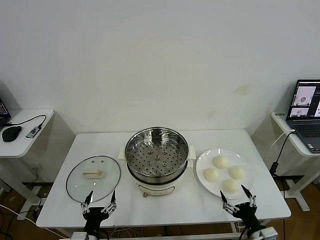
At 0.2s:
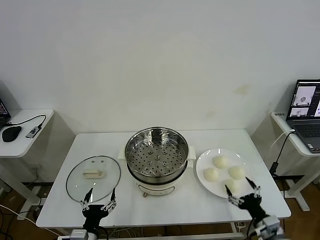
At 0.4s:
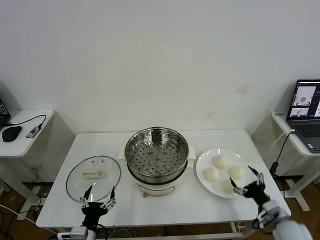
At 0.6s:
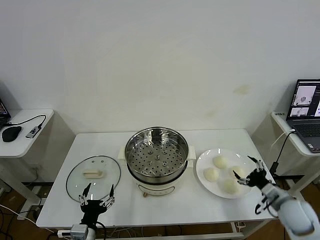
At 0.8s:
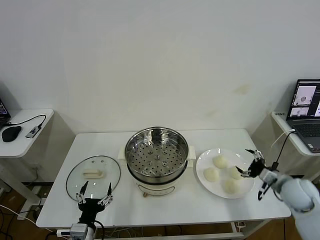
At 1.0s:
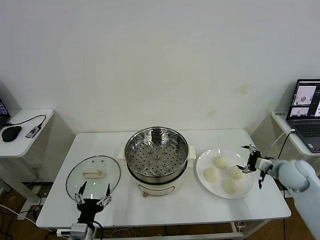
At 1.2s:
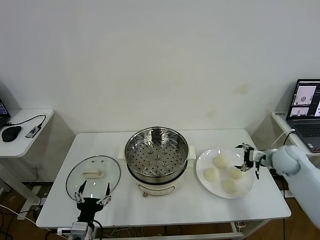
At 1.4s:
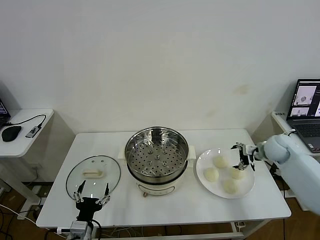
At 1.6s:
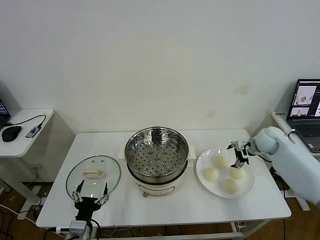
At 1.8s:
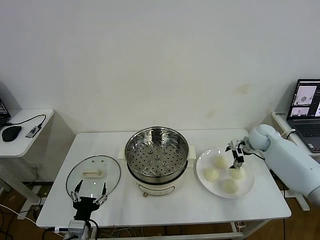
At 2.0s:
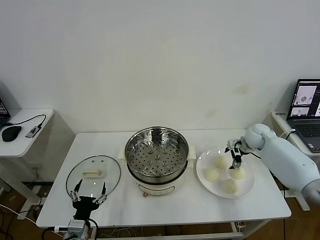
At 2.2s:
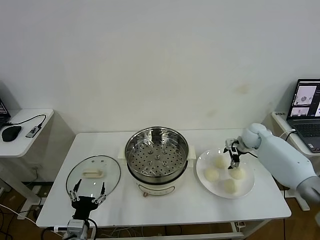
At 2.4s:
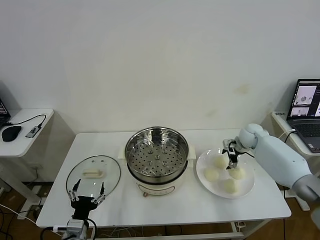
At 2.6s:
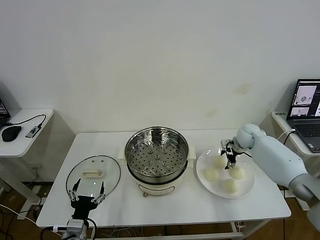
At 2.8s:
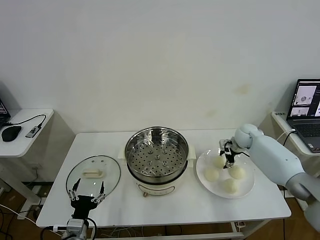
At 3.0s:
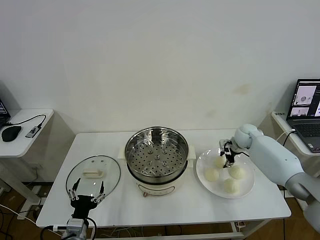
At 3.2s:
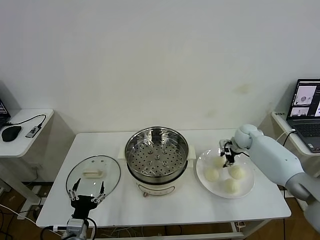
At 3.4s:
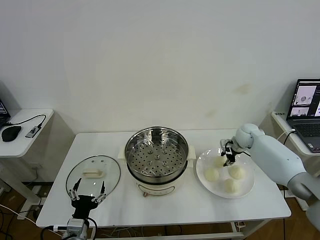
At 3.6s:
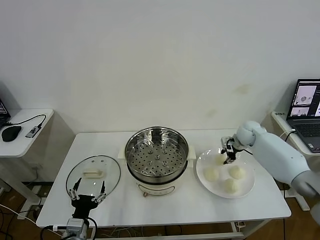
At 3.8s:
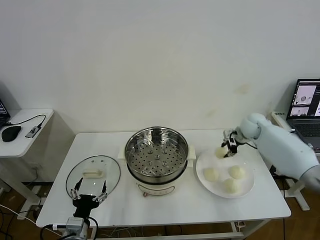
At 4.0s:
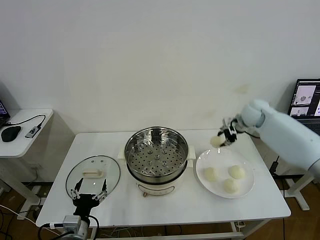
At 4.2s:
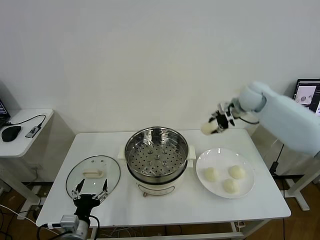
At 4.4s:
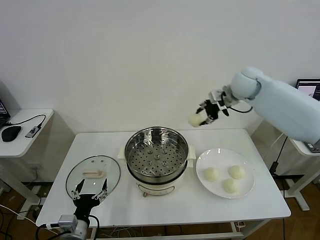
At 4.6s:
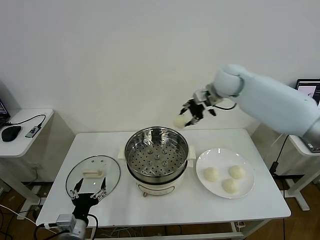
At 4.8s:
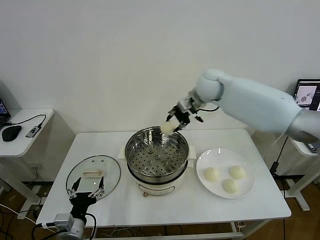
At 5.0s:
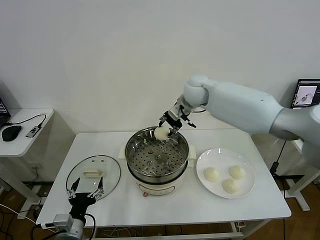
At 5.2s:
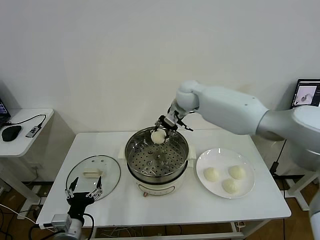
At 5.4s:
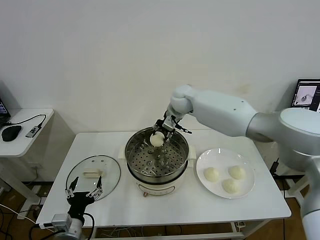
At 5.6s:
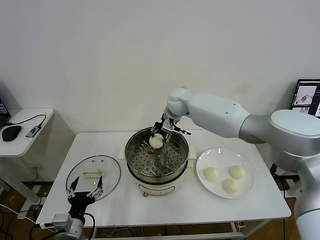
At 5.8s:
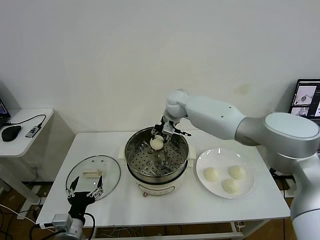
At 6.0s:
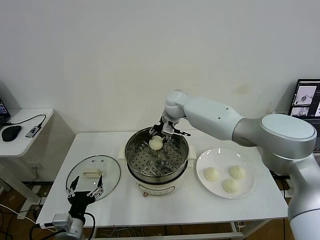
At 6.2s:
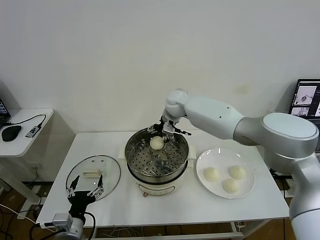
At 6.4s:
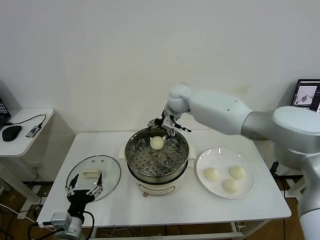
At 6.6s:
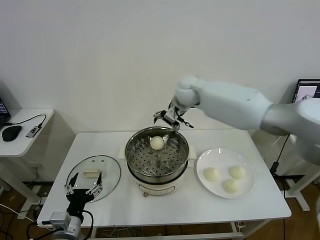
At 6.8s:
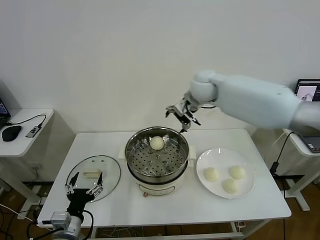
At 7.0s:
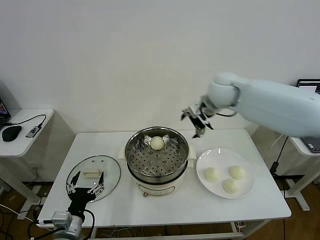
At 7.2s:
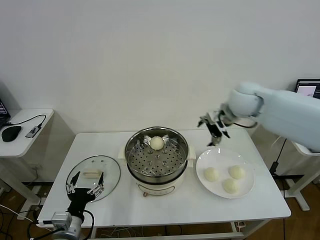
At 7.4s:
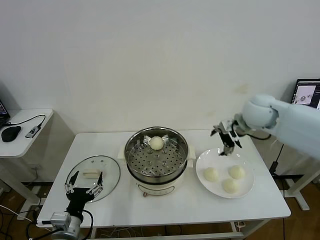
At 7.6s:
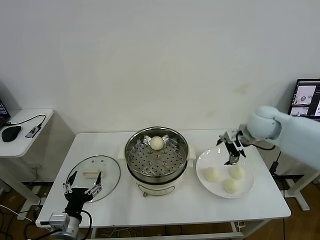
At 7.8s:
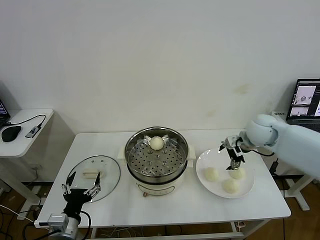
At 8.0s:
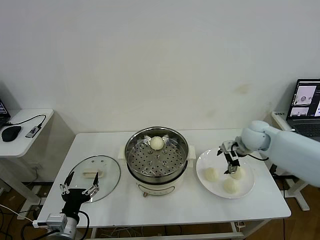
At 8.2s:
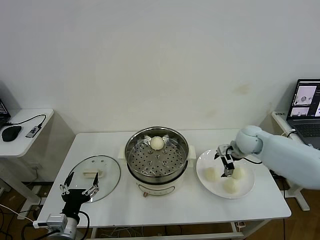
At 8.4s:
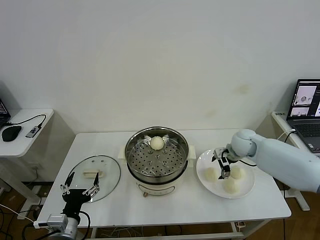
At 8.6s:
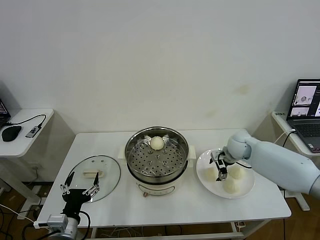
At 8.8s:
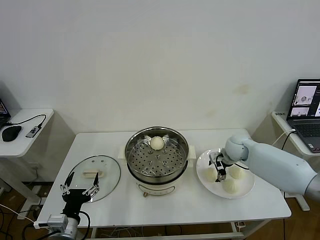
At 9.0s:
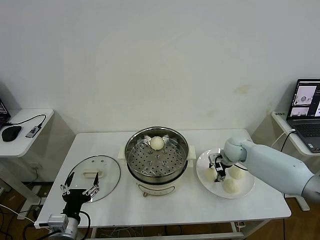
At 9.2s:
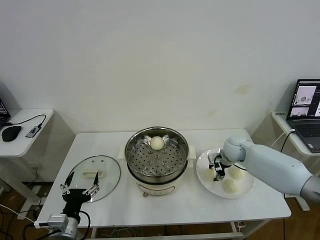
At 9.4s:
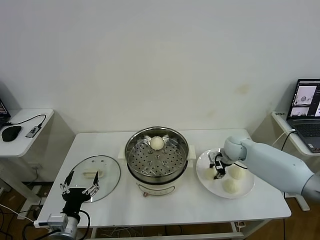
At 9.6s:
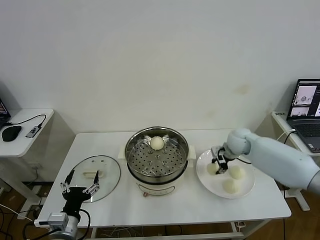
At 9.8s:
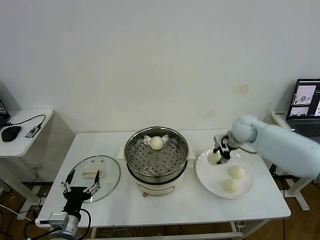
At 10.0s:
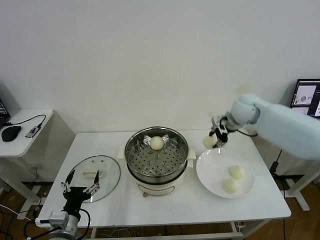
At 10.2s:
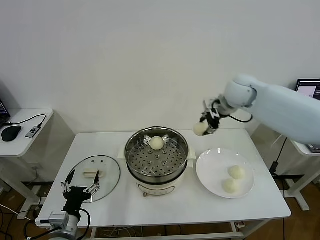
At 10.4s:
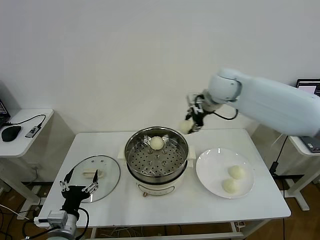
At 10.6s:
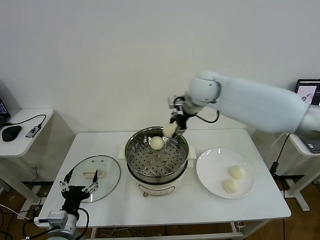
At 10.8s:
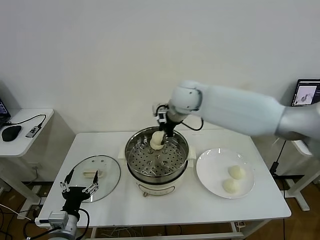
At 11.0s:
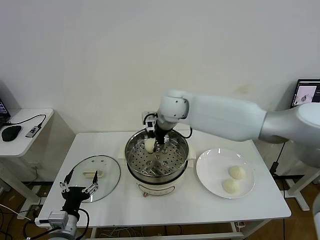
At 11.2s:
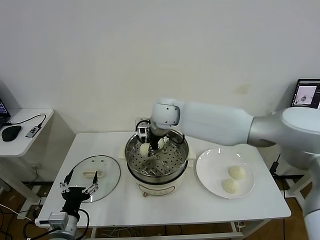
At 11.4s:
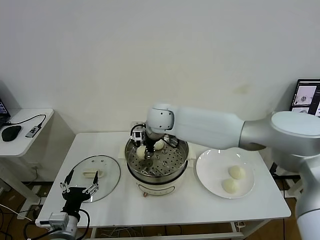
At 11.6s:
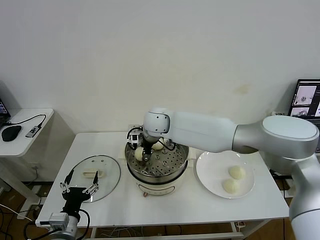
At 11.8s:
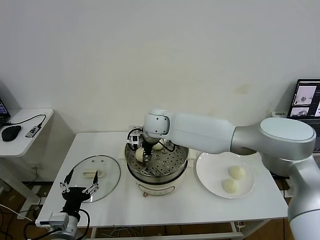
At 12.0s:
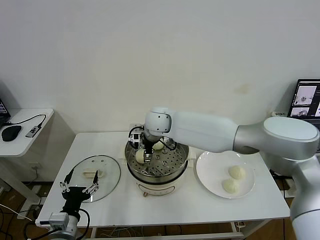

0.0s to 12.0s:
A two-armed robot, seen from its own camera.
Task of the whole recording: take steamed baozi put them in steamer then cover it.
Step, 0.0s to 3.4s: Grasp the baozi in the plate with right gripper.
Step, 3.6s to 6.2s: Place the baozi on the steamer with right gripper.
Step, 6.6s to 9.4s: Grasp the baozi in the plate with right gripper.
1.6s to 3.0s: The right gripper shifts by about 5 cm, and closes.
3.0s to 4.4s: The right gripper travels upward and to the left by approximately 30 cm.
4.4s to 6.0s: The right gripper moves to the left and downward, some 20 cm, and opens.
6.0s to 7.6s: The right gripper is displaced to the right and backward by some 30 cm.
7.6s to 9.0s: The right gripper goes some 15 cm downward, and closes its fingers.
9.0s to 10.4s: The right gripper is displaced upward and to the left by about 30 cm.
10.4s to 12.0s: The right gripper goes about 20 cm to the left and downward, and opens.

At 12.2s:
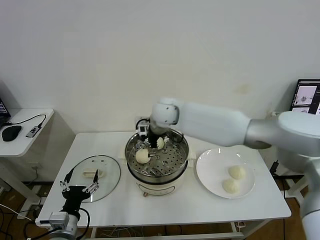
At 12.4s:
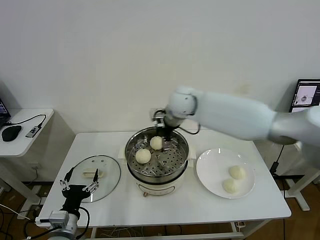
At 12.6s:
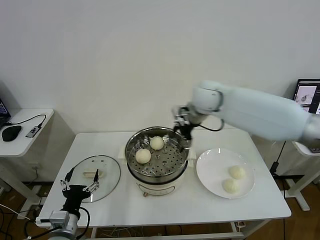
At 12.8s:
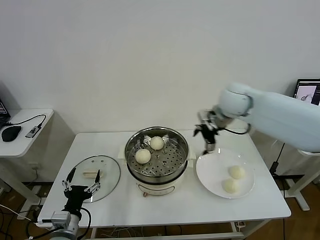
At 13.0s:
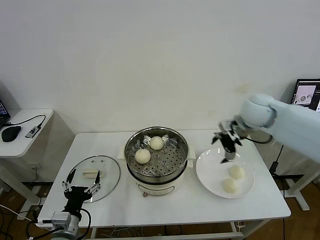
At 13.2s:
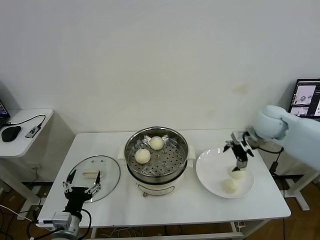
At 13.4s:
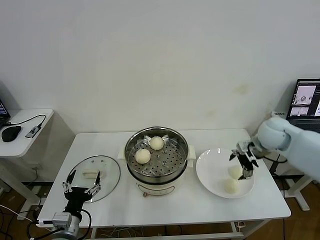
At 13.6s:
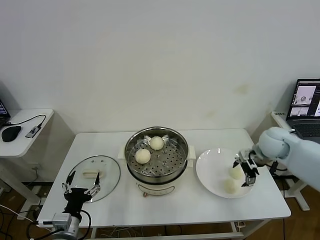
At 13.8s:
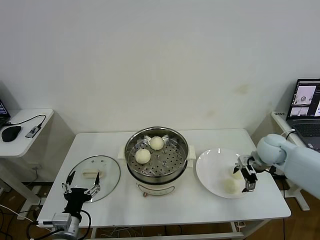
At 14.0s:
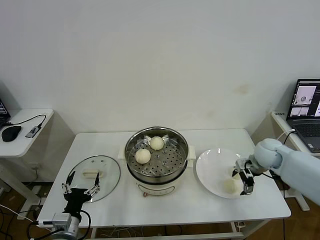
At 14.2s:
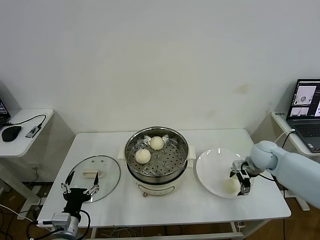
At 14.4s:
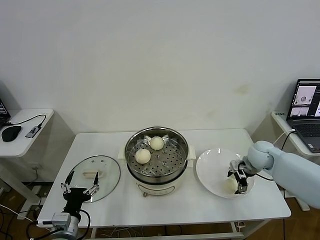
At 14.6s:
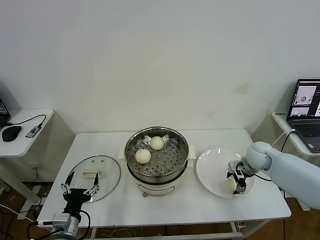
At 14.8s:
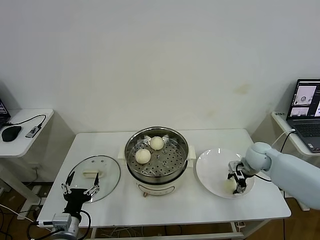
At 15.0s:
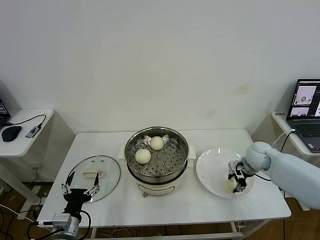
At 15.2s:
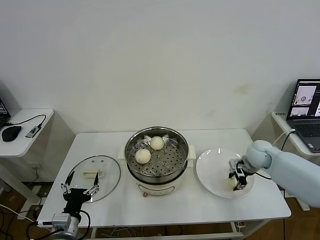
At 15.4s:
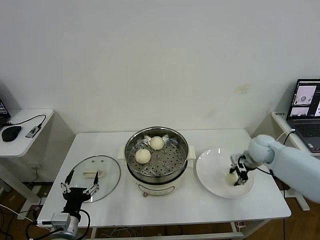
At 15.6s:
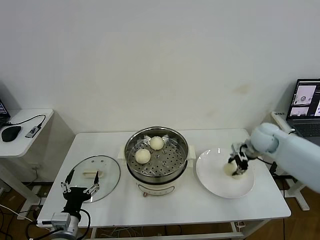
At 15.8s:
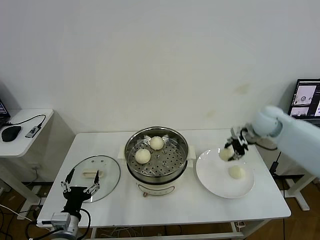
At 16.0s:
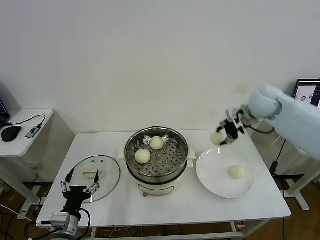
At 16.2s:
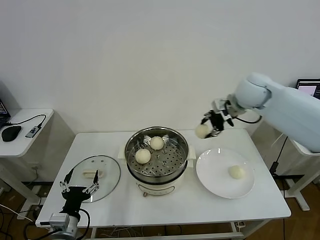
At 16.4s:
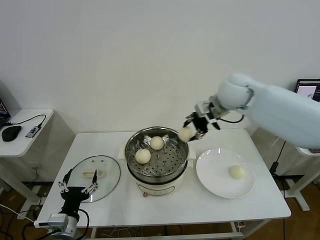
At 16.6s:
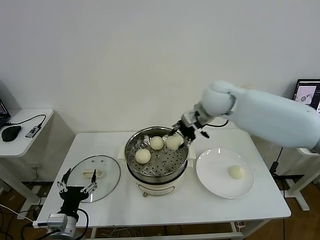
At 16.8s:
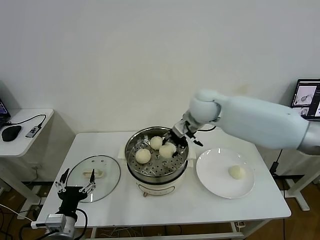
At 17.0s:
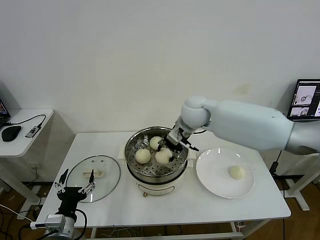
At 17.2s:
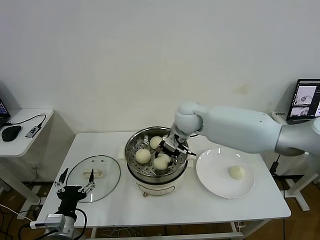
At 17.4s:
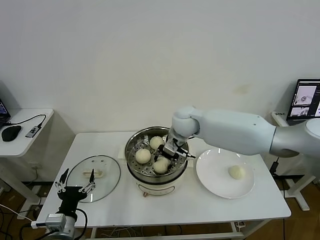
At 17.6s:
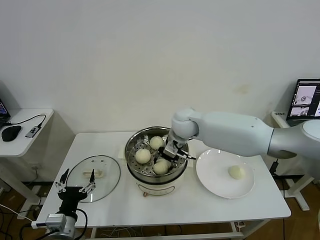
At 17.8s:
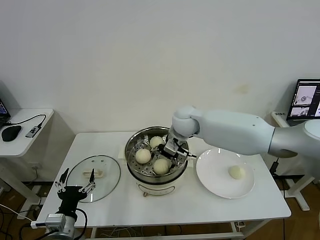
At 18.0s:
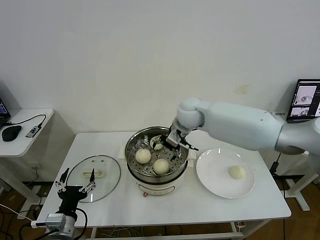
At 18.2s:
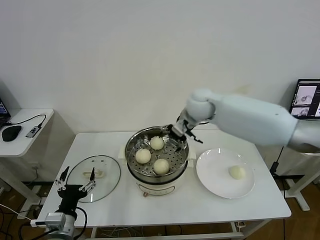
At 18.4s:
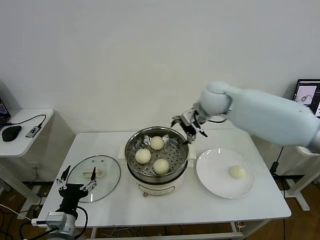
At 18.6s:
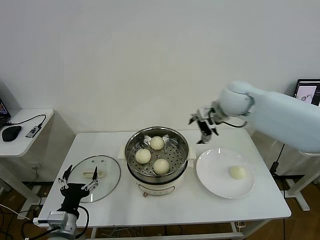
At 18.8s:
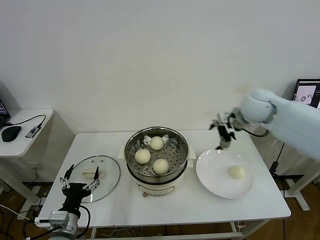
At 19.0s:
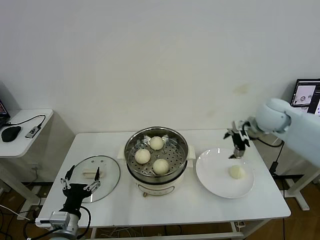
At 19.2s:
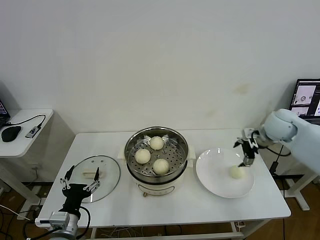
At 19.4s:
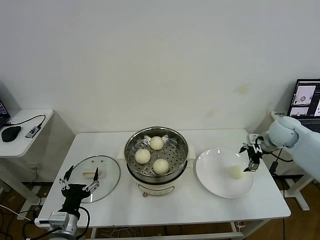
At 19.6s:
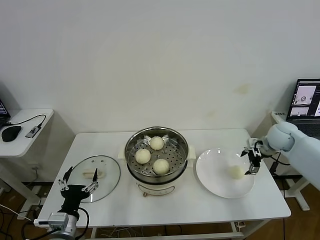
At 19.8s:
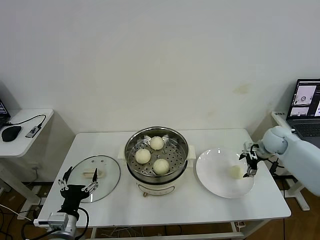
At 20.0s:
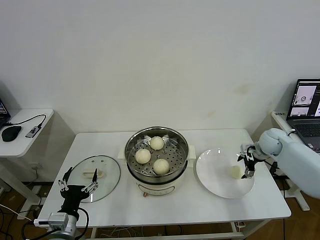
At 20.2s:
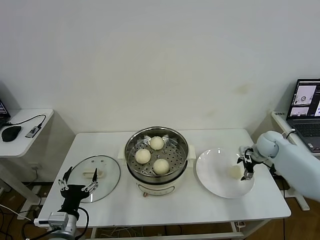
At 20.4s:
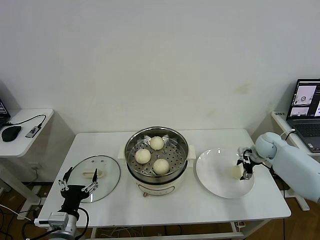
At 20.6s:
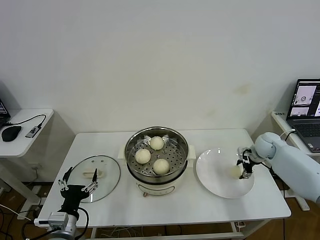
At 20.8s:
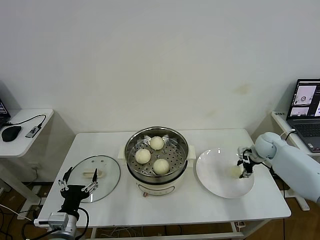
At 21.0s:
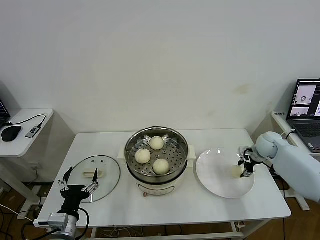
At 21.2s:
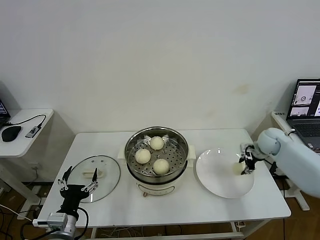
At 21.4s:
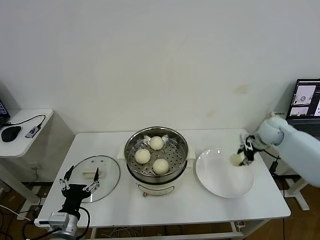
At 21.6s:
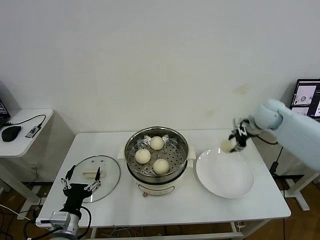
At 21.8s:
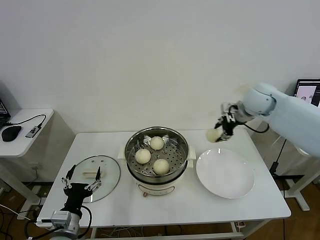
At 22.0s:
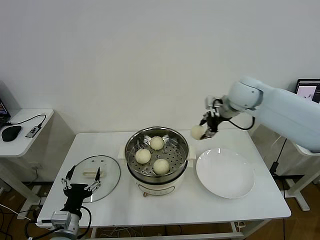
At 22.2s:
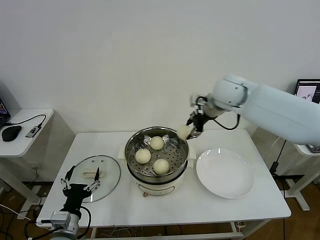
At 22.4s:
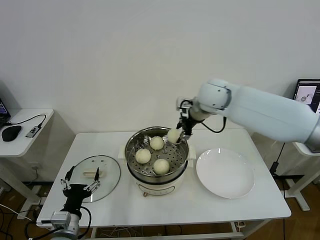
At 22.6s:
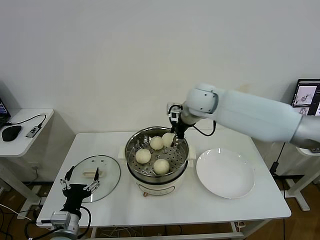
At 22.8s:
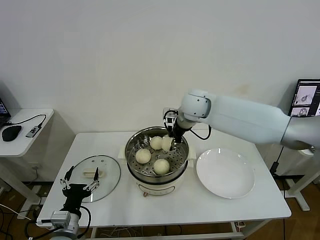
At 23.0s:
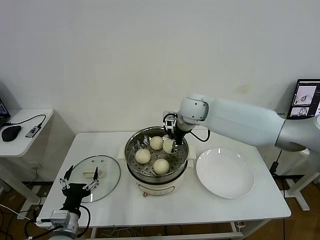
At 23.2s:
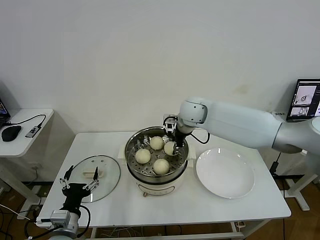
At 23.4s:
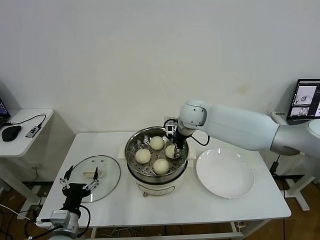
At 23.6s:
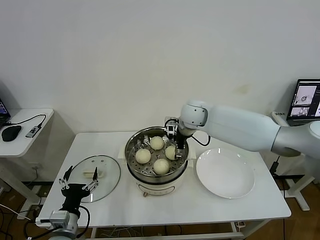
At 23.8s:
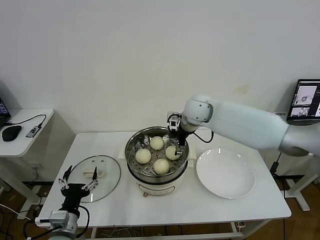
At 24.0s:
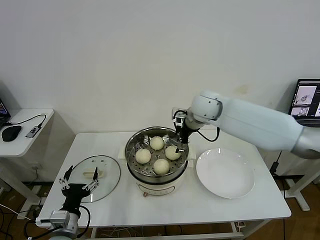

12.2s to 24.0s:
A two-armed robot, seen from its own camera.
Task of the whole recording: take steamed baozi put them in steamer then cover it.
Step, 12.2s to 15.2s: Grasp the baozi in the plate with right gripper.
Step, 15.4s to 18.0s: Place the baozi on the steamer with right gripper.
Step, 18.2s to 21.0s: Grasp the baozi in the plate with right gripper.
Step, 21.2s to 23.8s: Place the baozi on the steamer with right gripper.
12.2s to 13.6s: The right gripper goes about 35 cm to the right.
13.6s to 15.2s: The right gripper moves downward, about 5 cm, and closes.
15.2s to 16.6s: The right gripper is displaced to the left and upward by roughly 30 cm.
16.6s to 18.2s: The right gripper travels downward and back again, approximately 10 cm each way, and opens.
18.2s to 19.6s: The right gripper is displaced to the right and downward by about 30 cm.
19.6s to 21.0s: The right gripper shifts roughly 5 cm downward, and closes up.
21.0s to 22.6s: The right gripper is displaced to the left and upward by approximately 35 cm.
22.6s to 24.0s: The right gripper opens.
